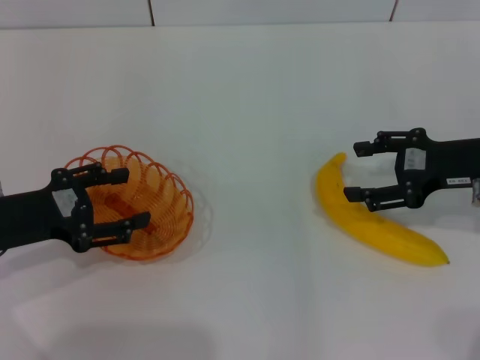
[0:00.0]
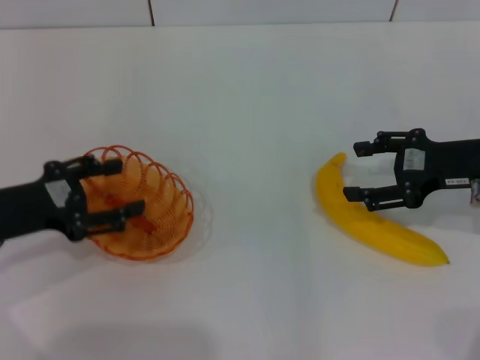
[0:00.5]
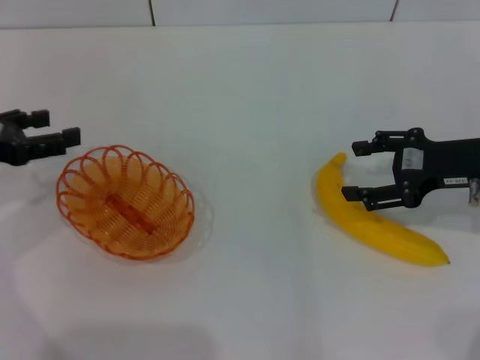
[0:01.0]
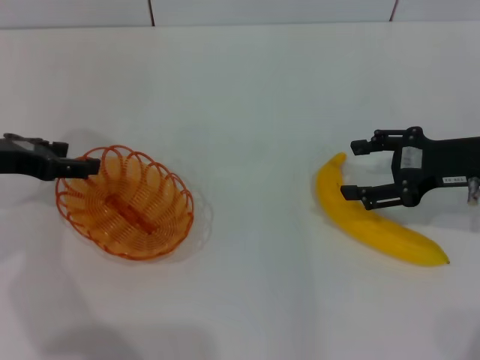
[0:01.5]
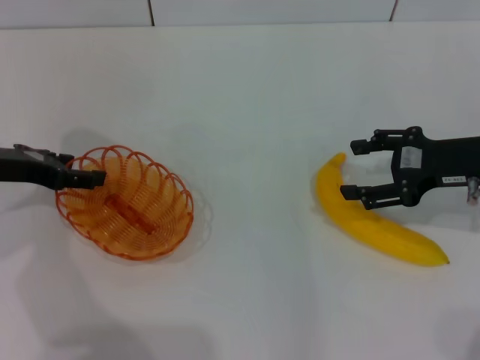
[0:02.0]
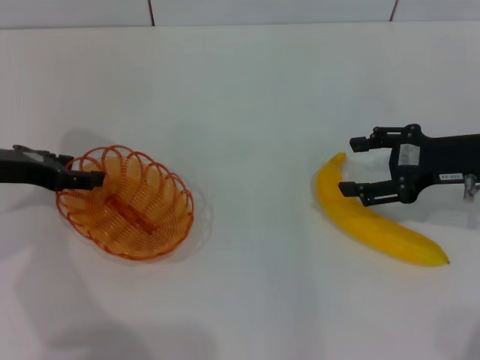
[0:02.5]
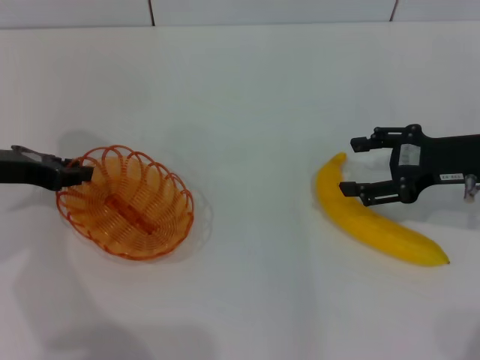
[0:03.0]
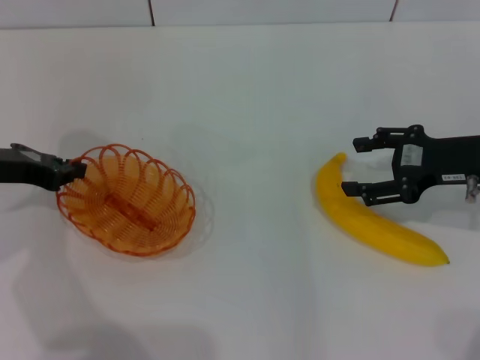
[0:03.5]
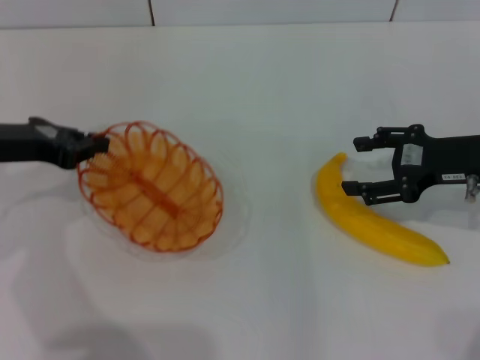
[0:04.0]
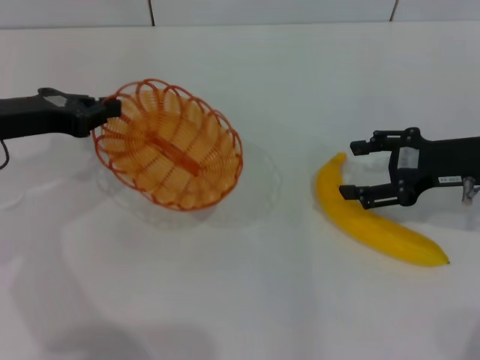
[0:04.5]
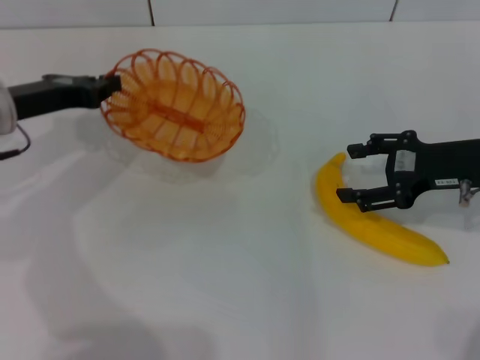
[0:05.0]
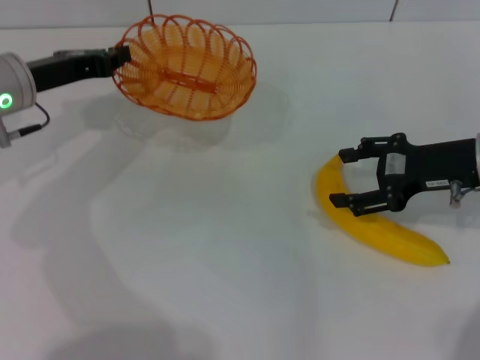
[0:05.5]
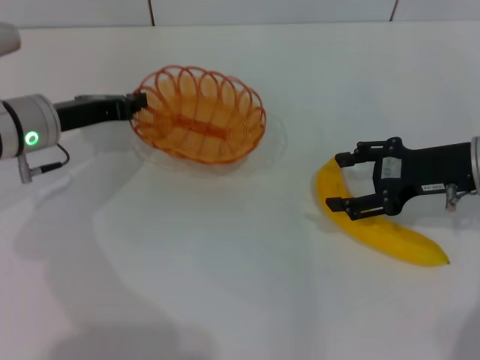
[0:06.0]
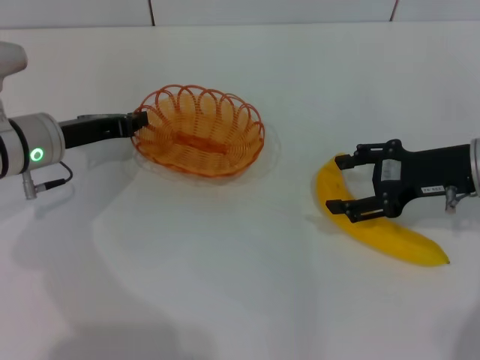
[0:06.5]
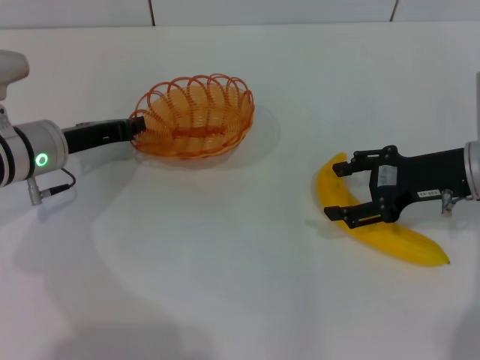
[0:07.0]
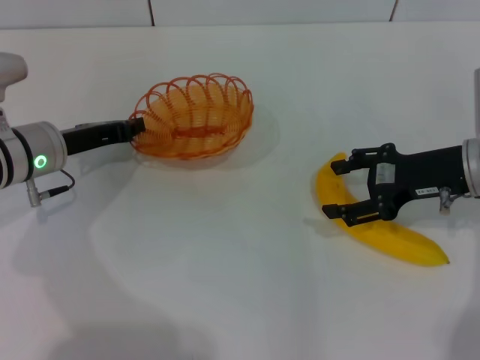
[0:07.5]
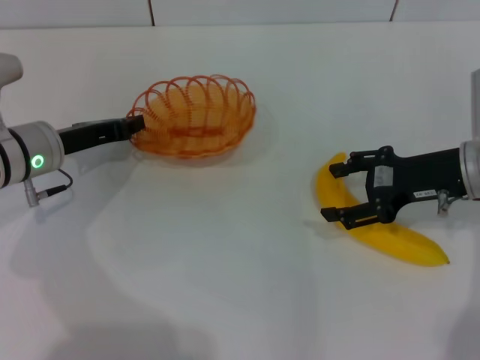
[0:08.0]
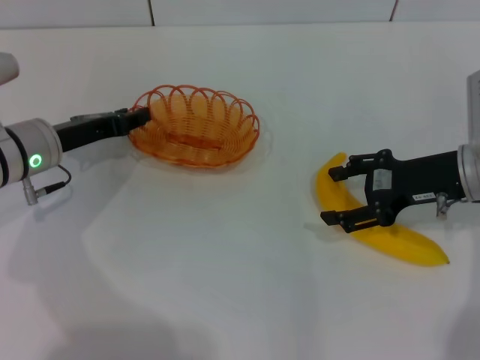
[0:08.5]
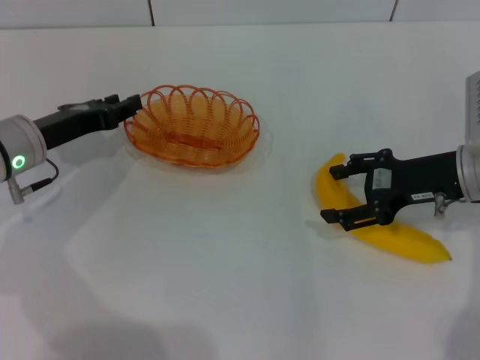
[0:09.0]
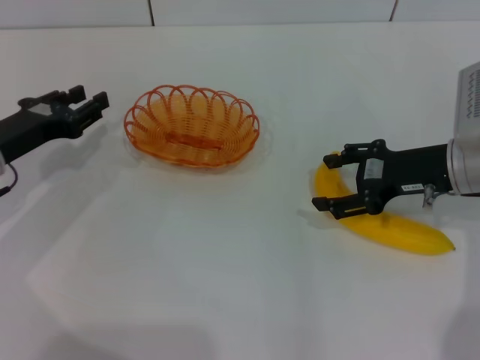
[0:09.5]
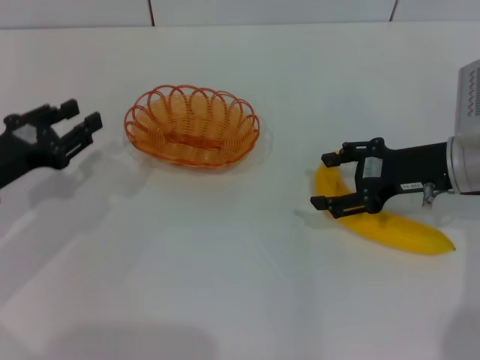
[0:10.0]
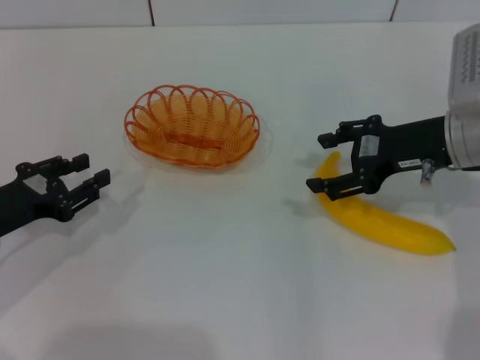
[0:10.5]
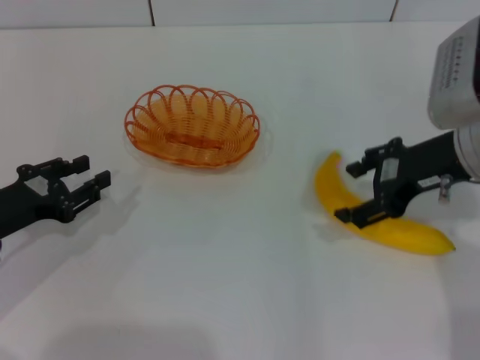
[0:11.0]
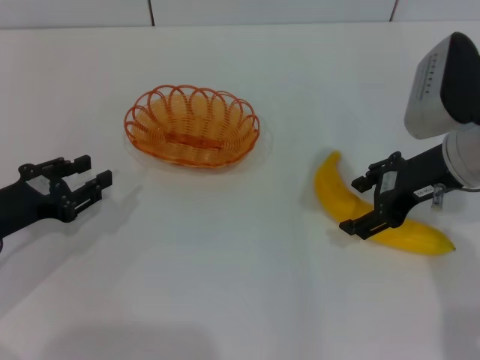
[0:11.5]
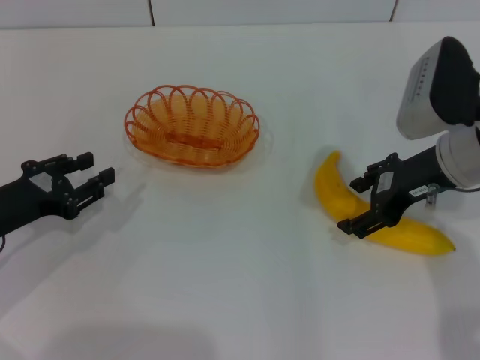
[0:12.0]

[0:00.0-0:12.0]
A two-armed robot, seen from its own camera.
Step, 0:00.0 to 0:04.0: Pick up the basket with the left gripper.
Step, 0:04.5 to 0:09.0: Place the basket in the center of view with the left gripper.
0:00.0 to 0:02.0: The left gripper moves forward, roughly 10 cm.
0:02.0 to 0:04.0: The left gripper closes its fingers.
0:04.0 to 0:06.0: The left gripper shifts roughly 5 cm to the right.
0:06.0 to 0:08.0: The grippers make only small movements.
0:08.0 to 0:10.0: The left gripper moves backward and to the left, about 10 cm, and opens up.

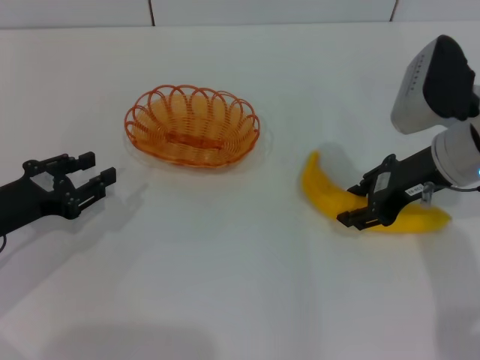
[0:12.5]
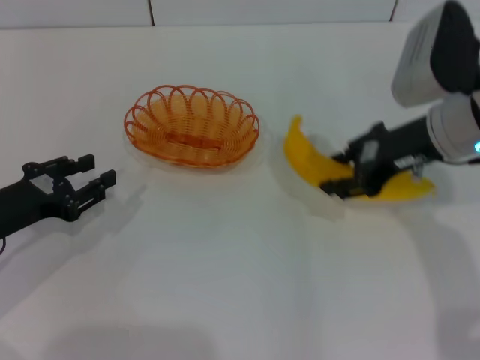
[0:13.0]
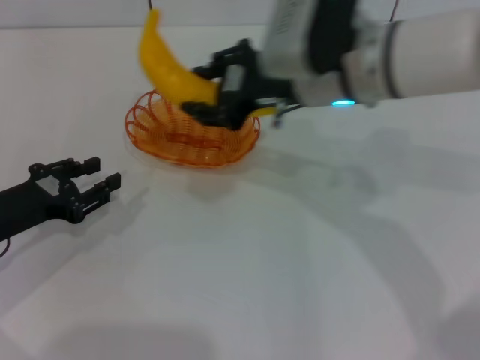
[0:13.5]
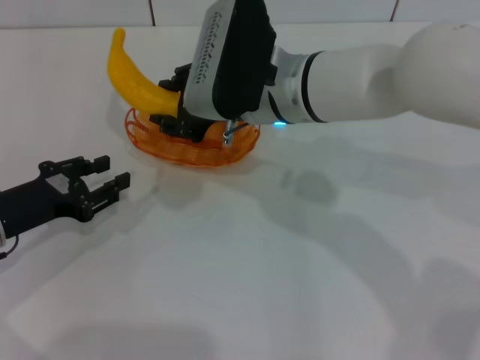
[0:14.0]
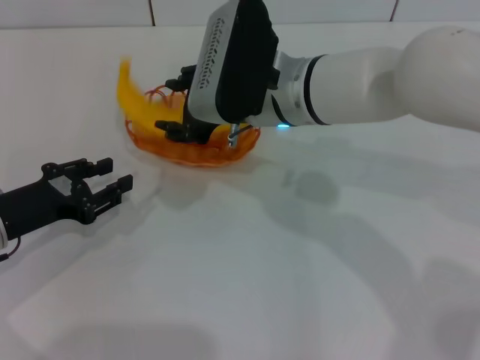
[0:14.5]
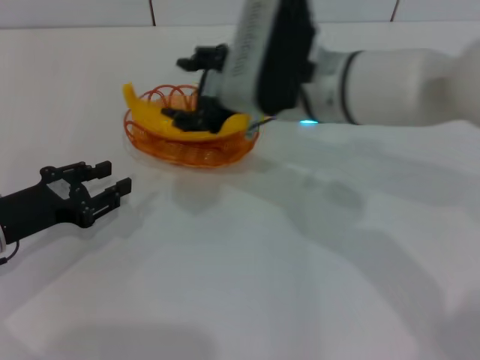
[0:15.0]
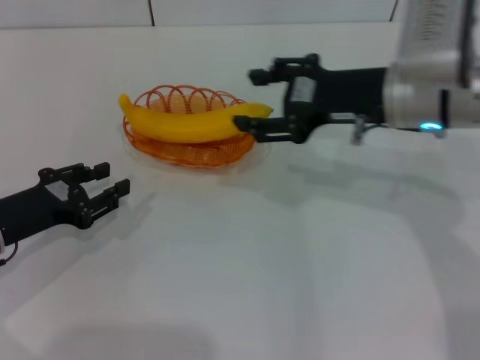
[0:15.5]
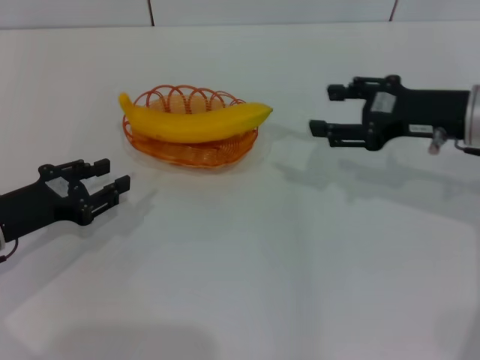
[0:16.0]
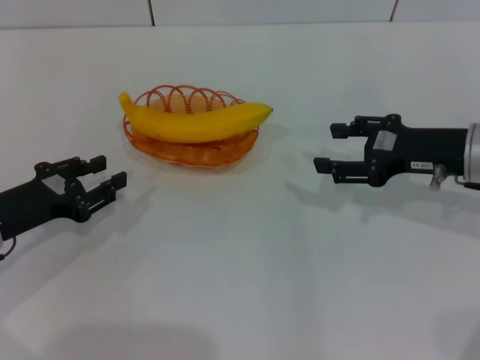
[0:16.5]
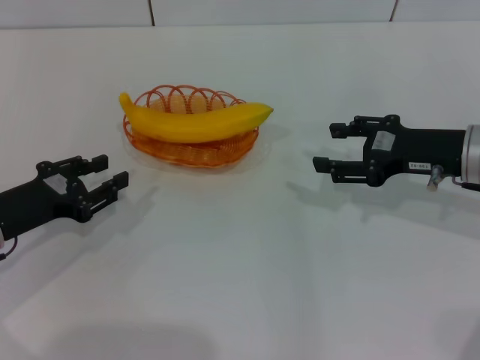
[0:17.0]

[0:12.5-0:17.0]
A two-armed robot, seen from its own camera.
Step, 0:13.0 to 0:15.0: Place the banana into the basket with the right gripper.
0:12.5 to 0:14.5: The right gripper is displaced to the left by approximately 15 cm.
0:14.5 to 0:17.0: The right gripper goes about 20 cm to the right.
